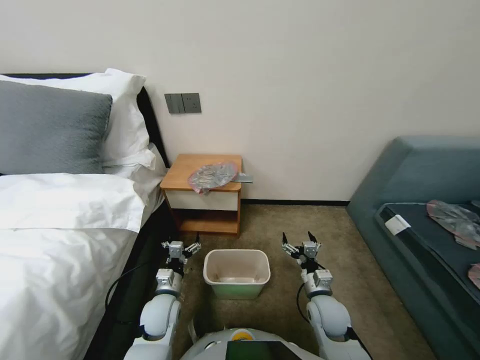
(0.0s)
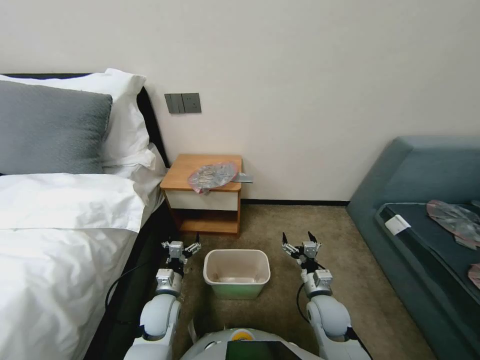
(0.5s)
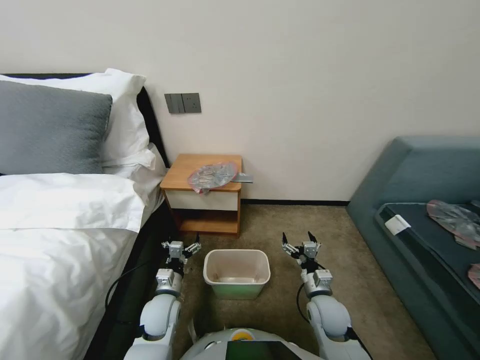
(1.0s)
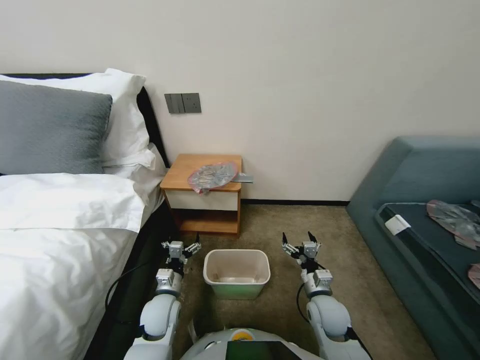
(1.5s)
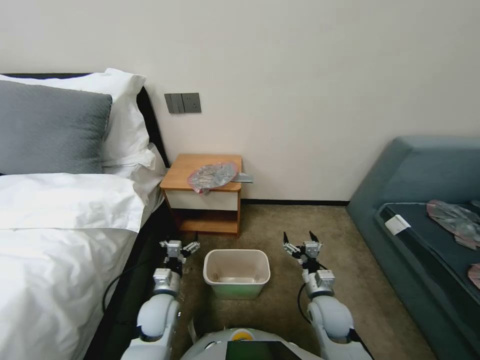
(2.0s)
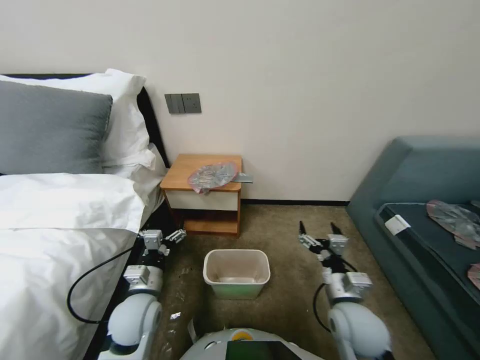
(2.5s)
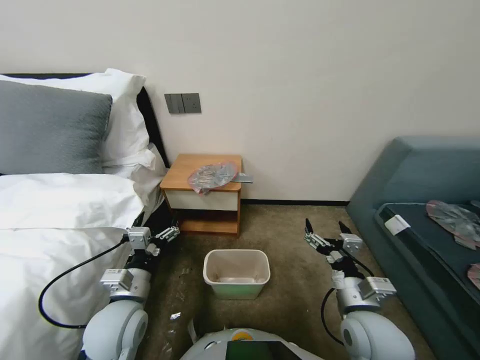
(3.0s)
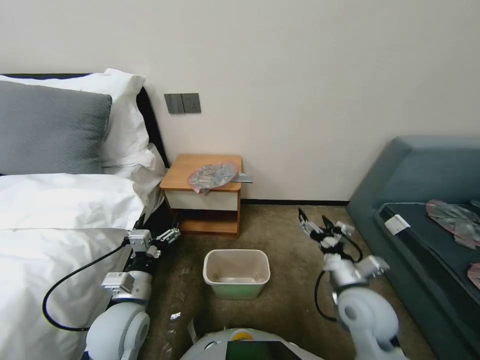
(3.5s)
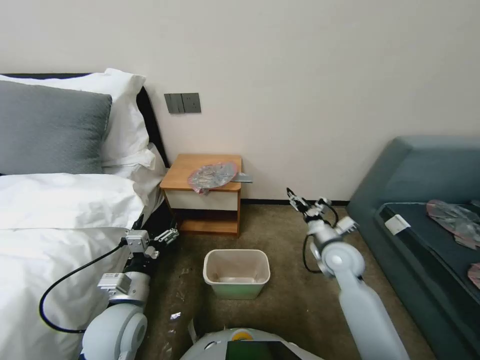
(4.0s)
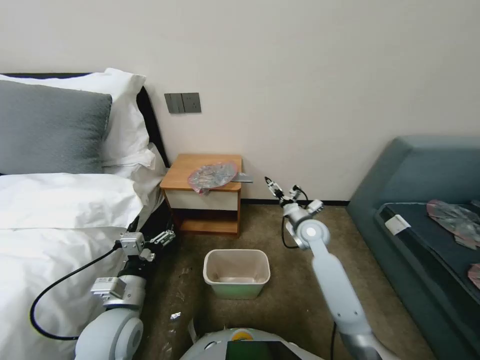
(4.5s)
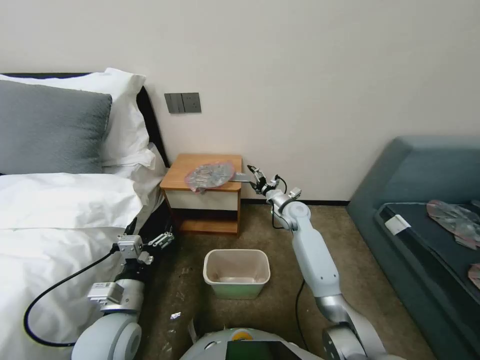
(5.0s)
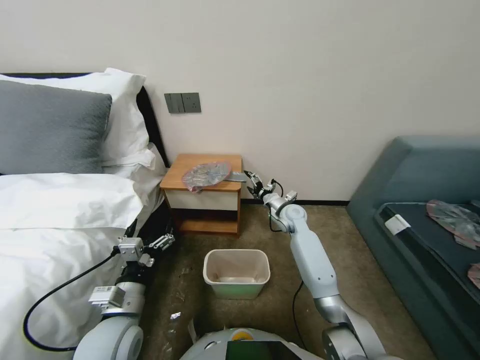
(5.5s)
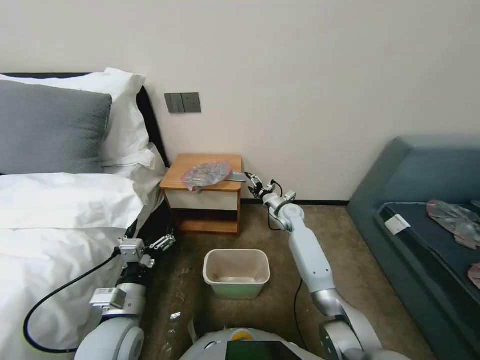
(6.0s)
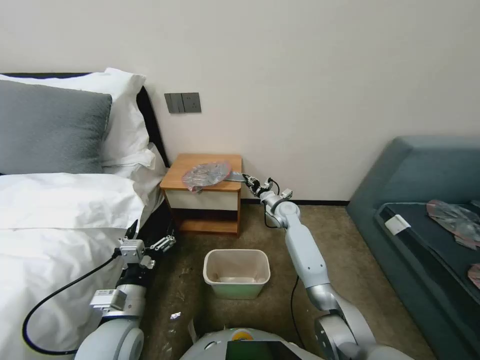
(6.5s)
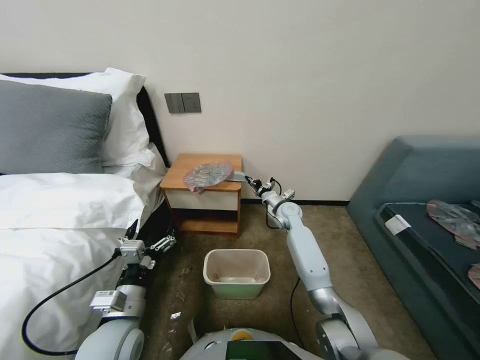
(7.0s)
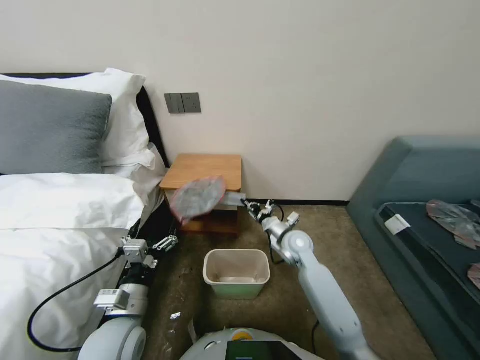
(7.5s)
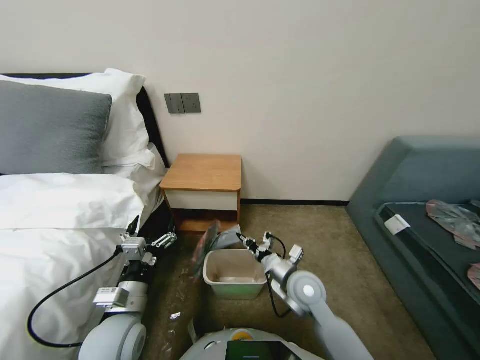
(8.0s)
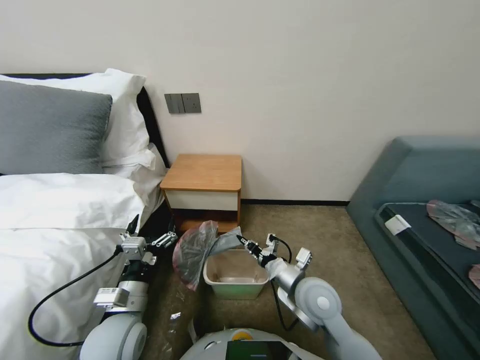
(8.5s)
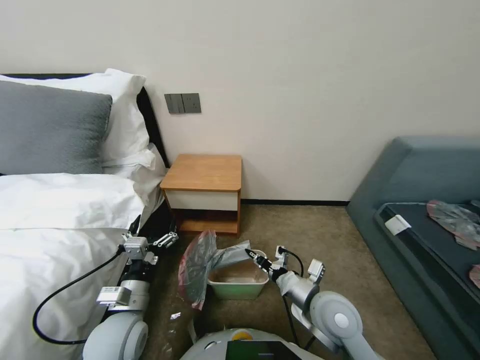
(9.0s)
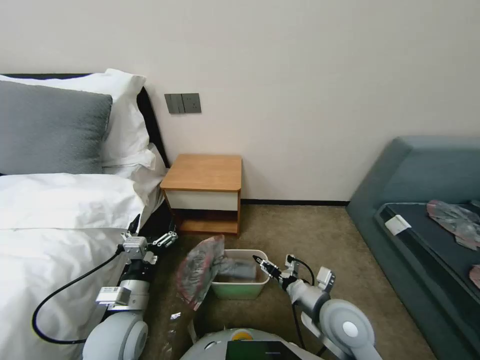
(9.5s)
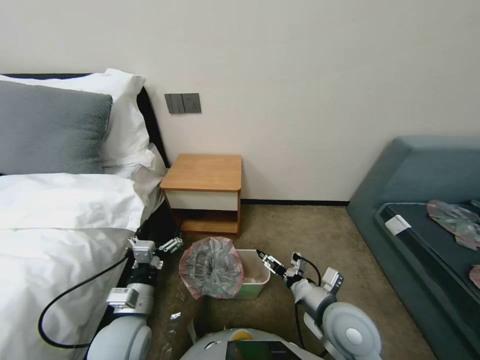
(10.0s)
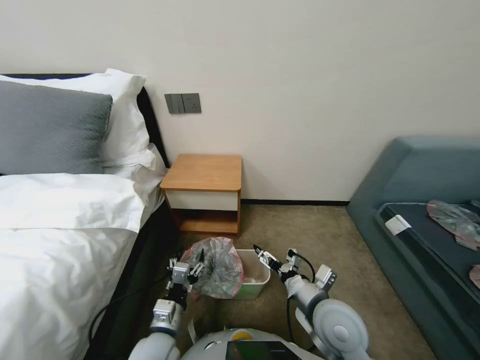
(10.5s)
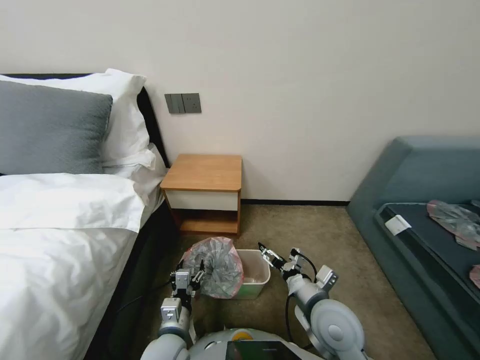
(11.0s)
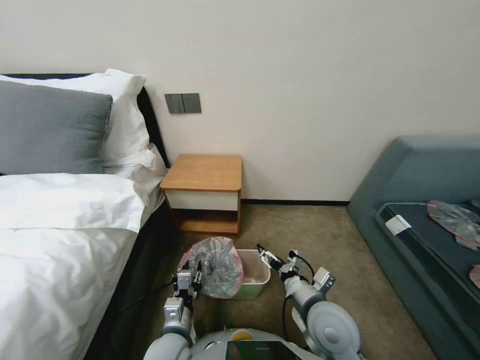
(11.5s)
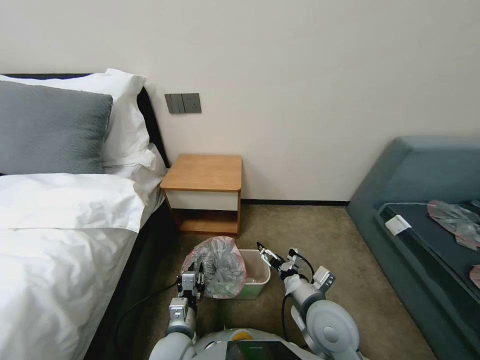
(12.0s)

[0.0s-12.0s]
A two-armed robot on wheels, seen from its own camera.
Task of the whole recording: Pick up the garbage bag from the table and place it over the trash can.
2.0s to 4.0s: The left gripper heads upward, covering about 15 cm. The right gripper shifts some 15 cm upward and forward.
4.0s to 6.0s: The right gripper goes about 20 cm forward.
6.0s to 8.0s: The right gripper is displaced backward by roughly 25 cm, and closes its fingers.
8.0s to 10.0s: The right gripper is displaced backward by roughly 10 cm, and opens up.
10.0s to 12.0s: The left gripper moves downward and to the right, approximately 15 cm, and closes up.

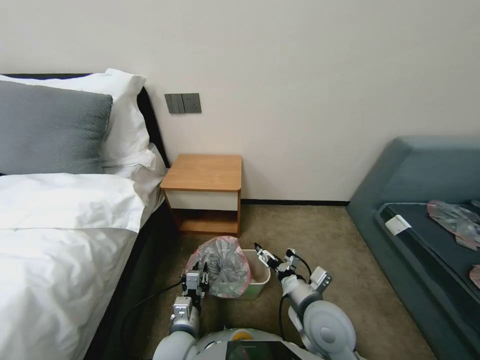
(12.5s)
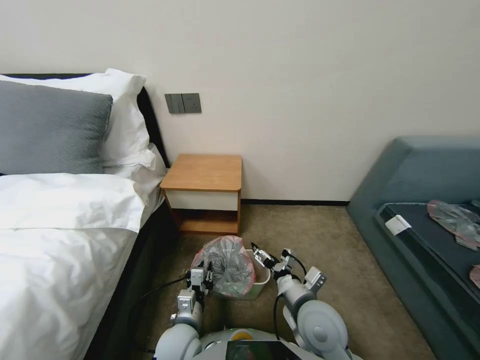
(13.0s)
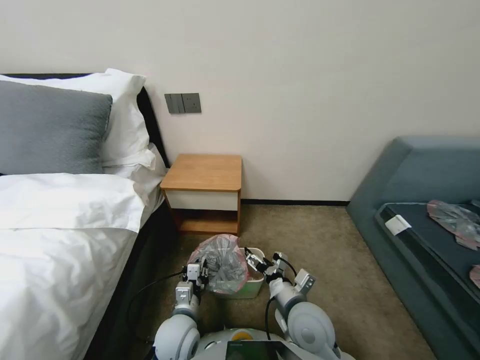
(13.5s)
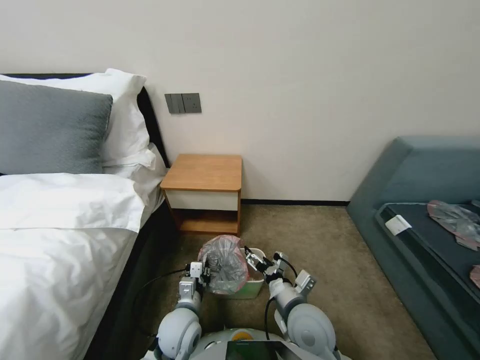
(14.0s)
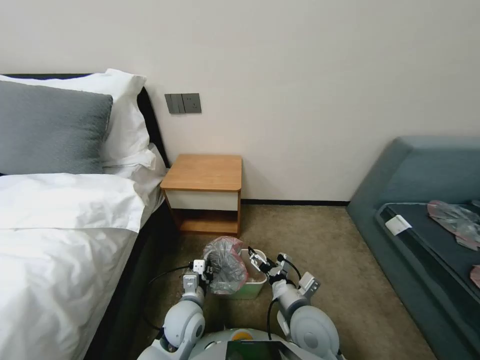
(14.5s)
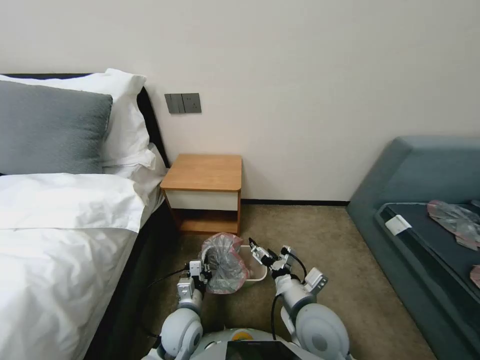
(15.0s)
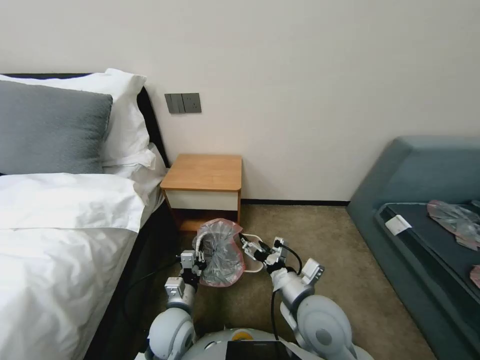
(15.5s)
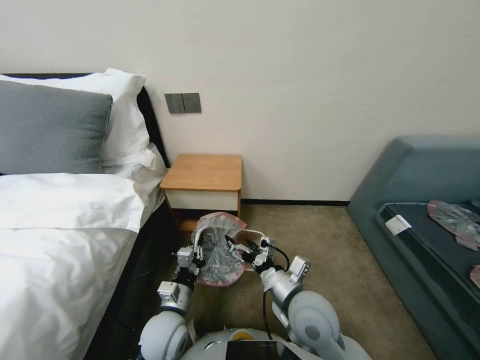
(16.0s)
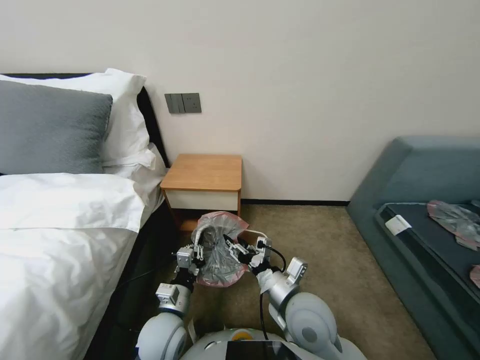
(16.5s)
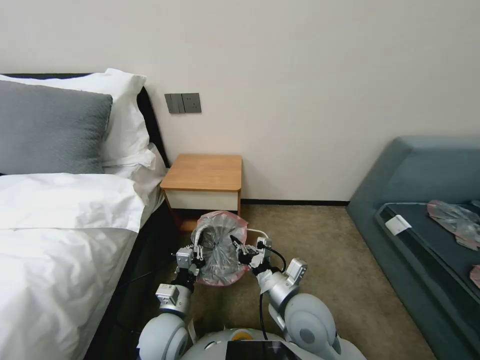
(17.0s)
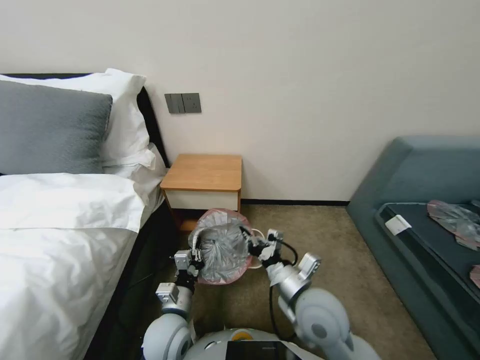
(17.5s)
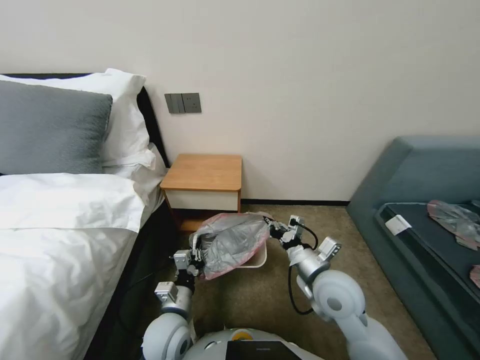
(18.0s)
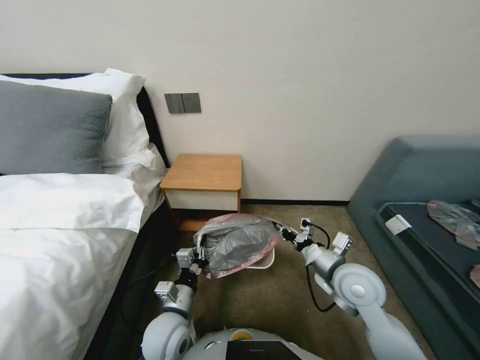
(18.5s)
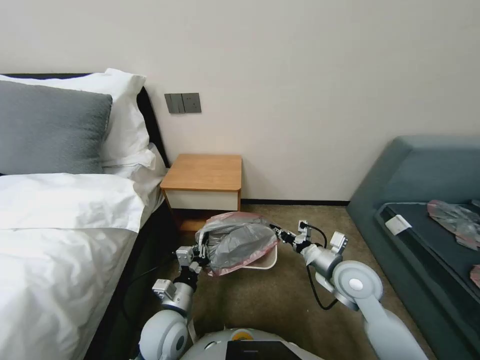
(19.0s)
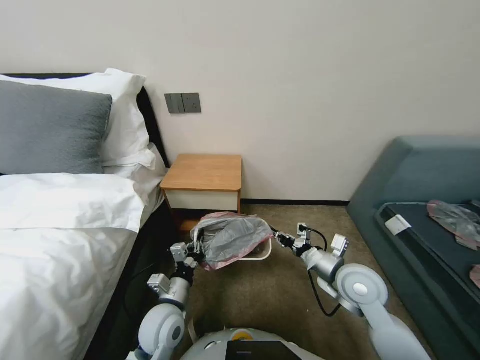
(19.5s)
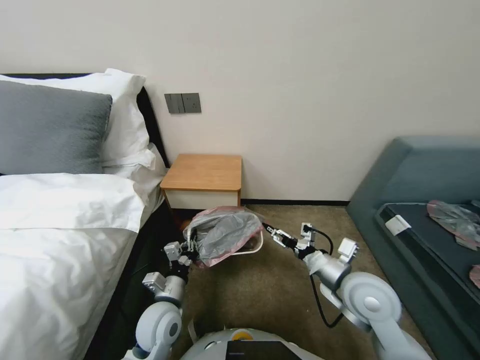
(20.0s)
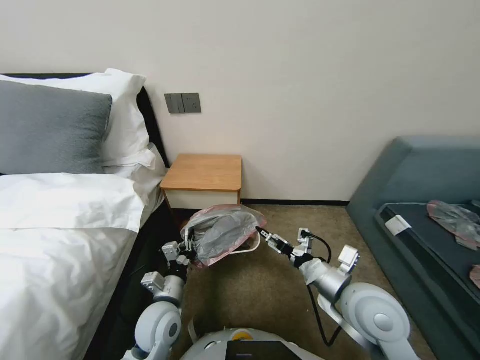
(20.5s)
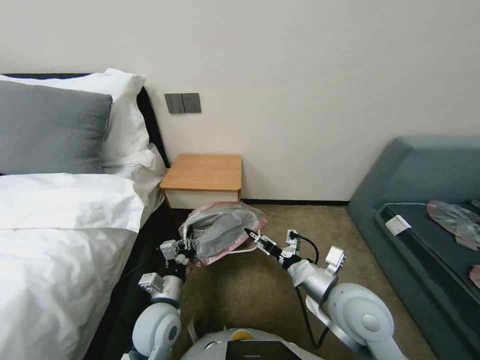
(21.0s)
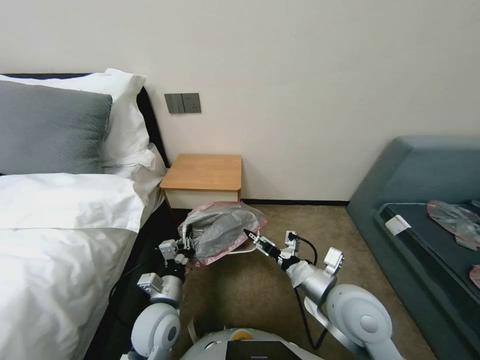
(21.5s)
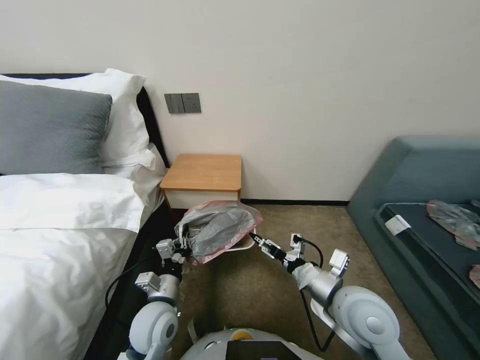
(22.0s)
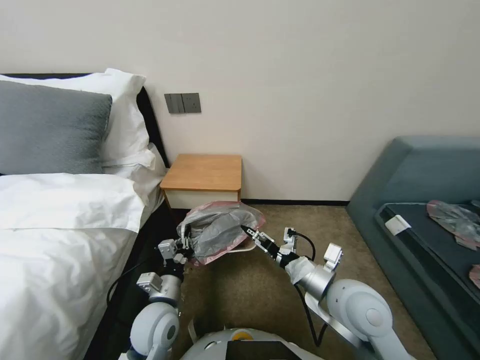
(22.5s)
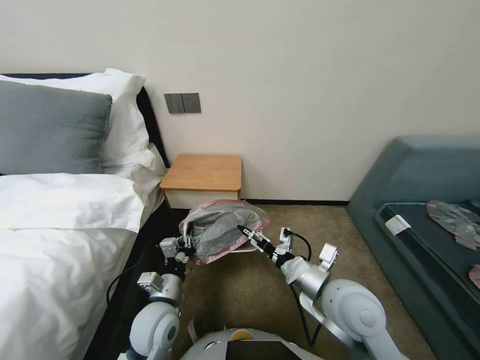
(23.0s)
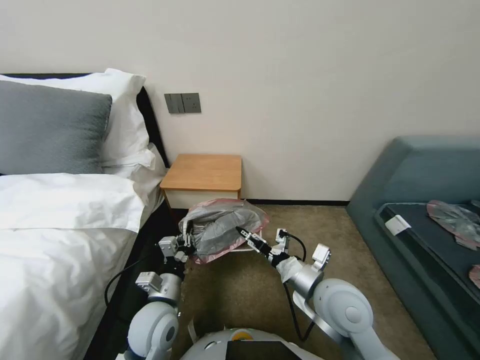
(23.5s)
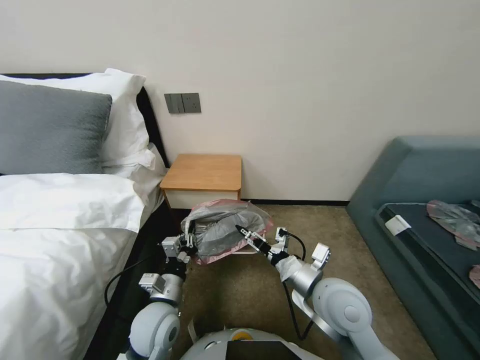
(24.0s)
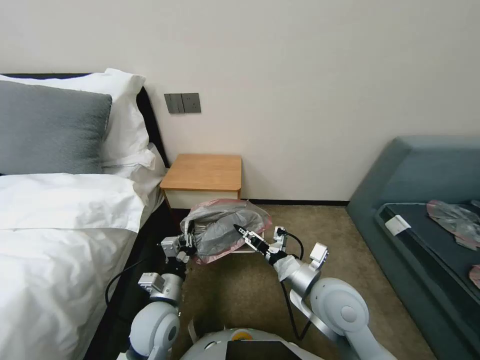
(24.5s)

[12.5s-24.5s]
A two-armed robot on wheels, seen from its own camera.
Task of the whole recording: Pick up the garbage bag from the table and place it over the trash can.
12.5s to 14.5s: The left gripper heads forward, covering some 5 cm.
14.5s to 16.5s: The left gripper changes place by roughly 5 cm.
16.5s to 18.5s: The right gripper moves to the right and forward, some 10 cm, and closes.
18.5s to 20.5s: The right gripper is displaced backward by approximately 5 cm, and opens.
20.5s to 24.5s: There are only small adjustments of the grippers.

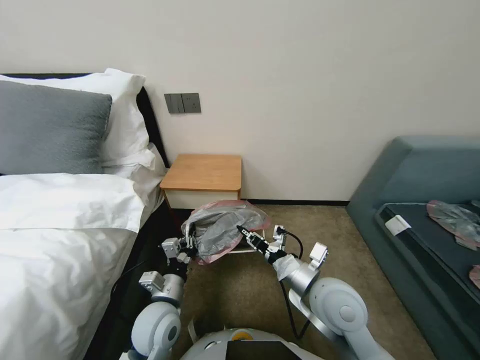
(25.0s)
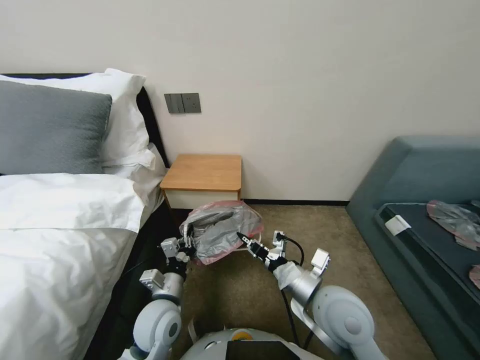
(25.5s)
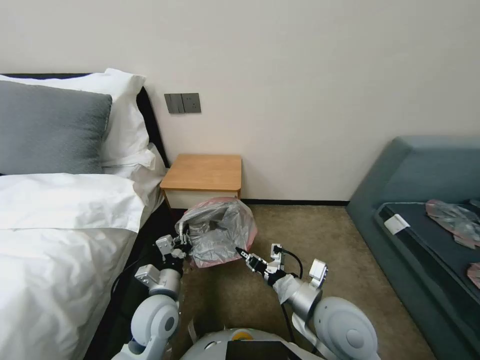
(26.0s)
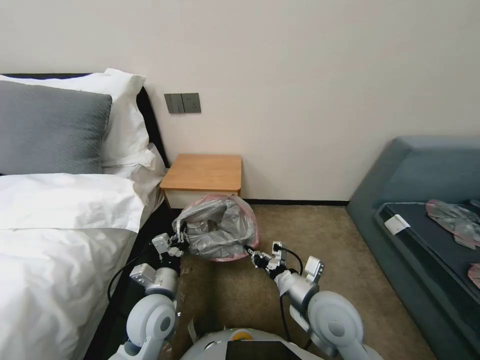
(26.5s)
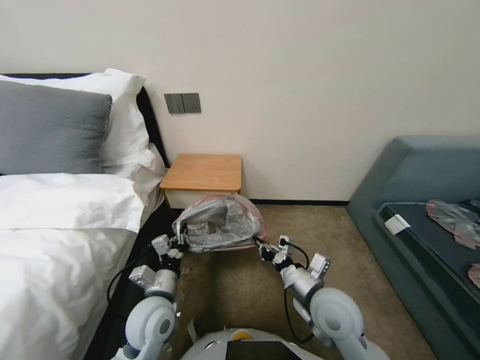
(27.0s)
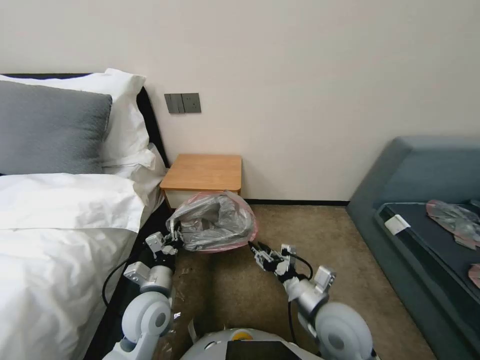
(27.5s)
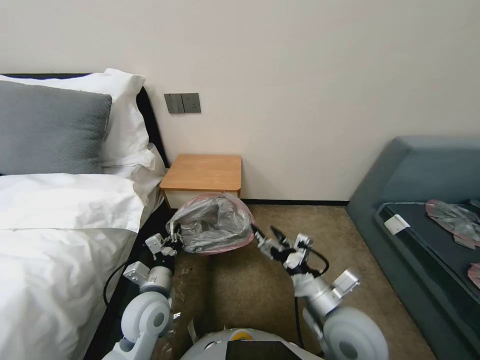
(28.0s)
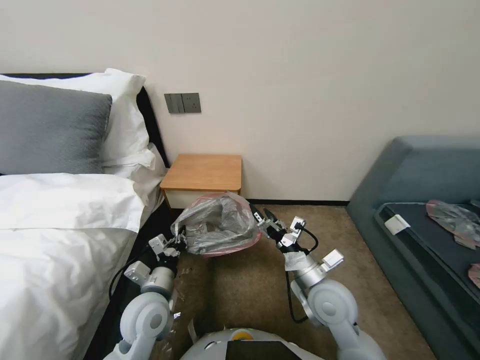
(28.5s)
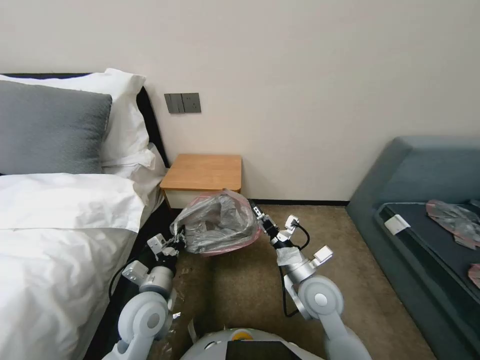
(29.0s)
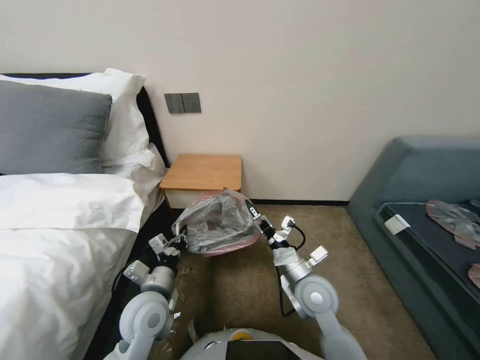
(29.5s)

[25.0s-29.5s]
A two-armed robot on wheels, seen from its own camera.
Task of the whole recording: Pick up the garbage bag from the table and place it over the trash can.
25.0s to 27.0s: The grippers stay close to where they were, moving slightly.
27.0s to 29.5s: The right gripper opens.
